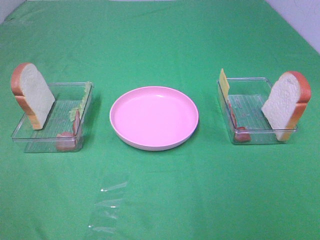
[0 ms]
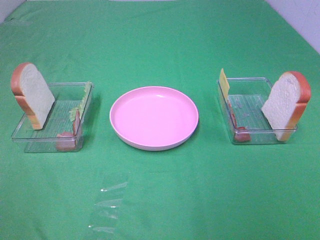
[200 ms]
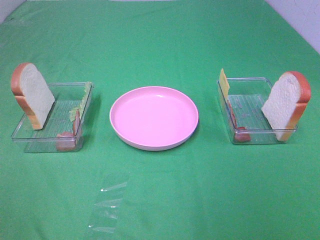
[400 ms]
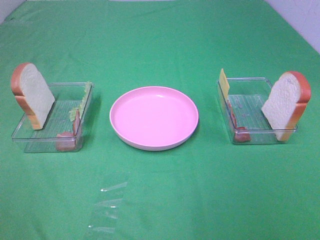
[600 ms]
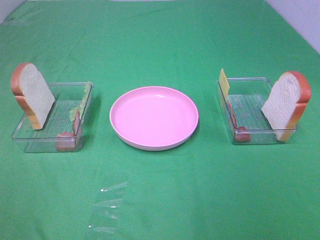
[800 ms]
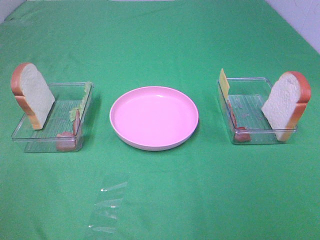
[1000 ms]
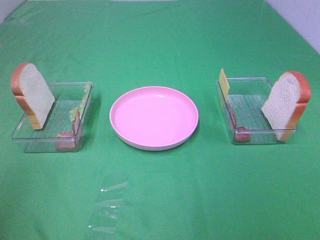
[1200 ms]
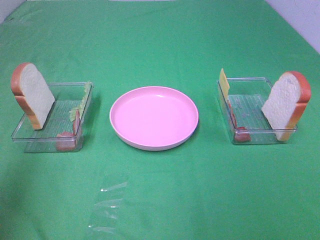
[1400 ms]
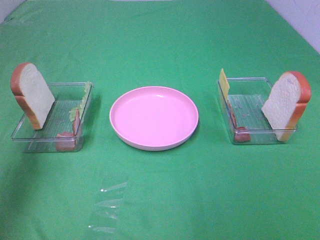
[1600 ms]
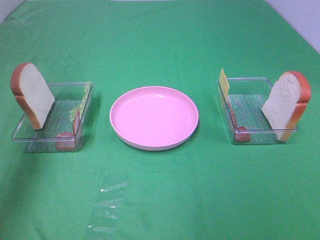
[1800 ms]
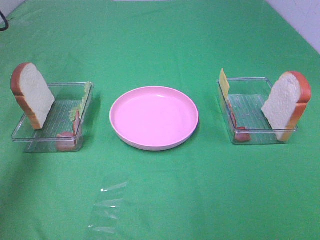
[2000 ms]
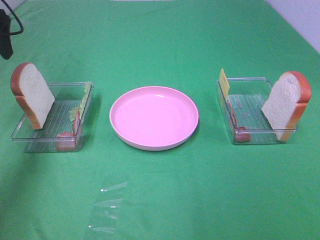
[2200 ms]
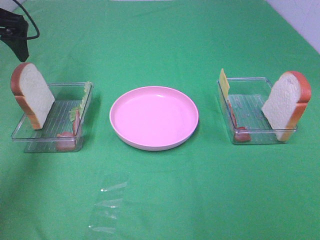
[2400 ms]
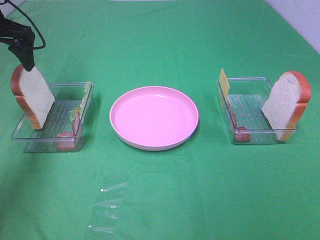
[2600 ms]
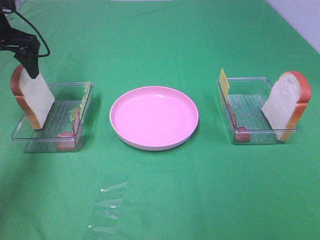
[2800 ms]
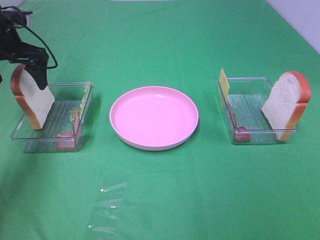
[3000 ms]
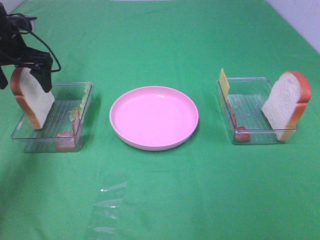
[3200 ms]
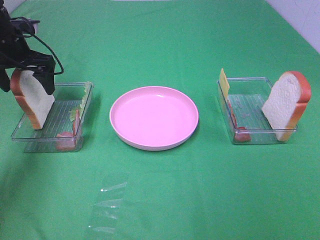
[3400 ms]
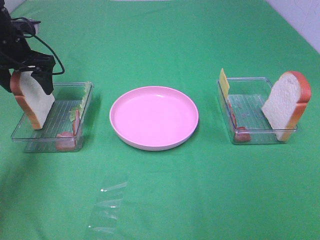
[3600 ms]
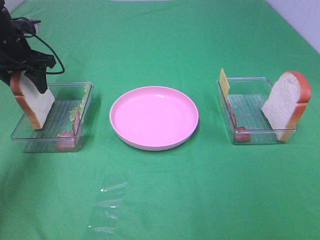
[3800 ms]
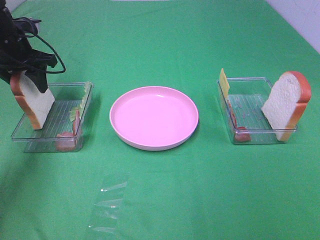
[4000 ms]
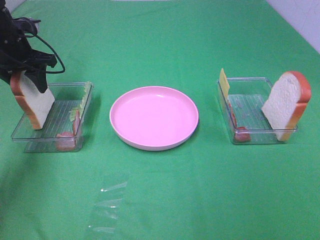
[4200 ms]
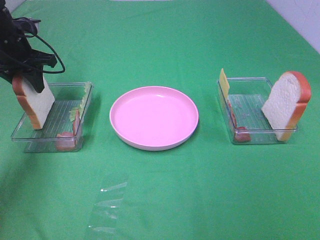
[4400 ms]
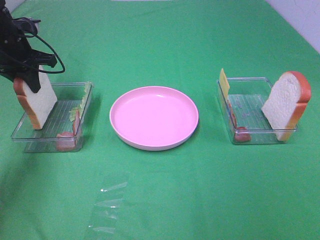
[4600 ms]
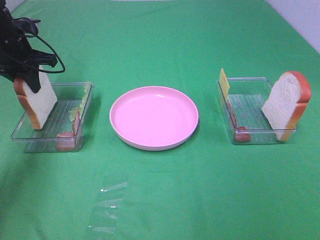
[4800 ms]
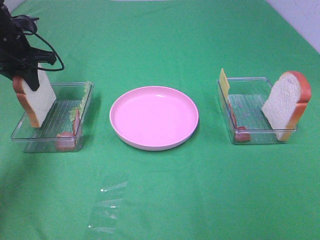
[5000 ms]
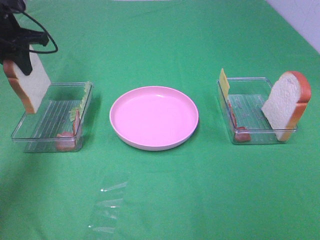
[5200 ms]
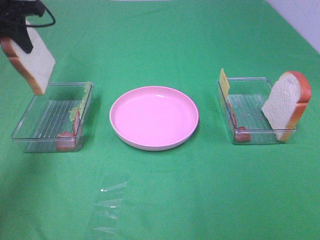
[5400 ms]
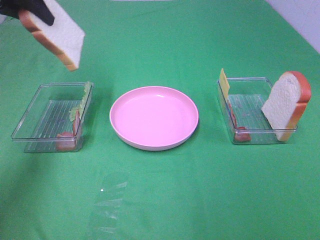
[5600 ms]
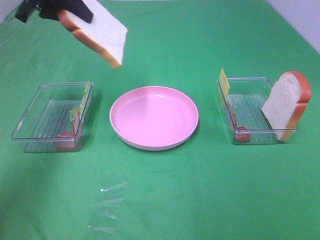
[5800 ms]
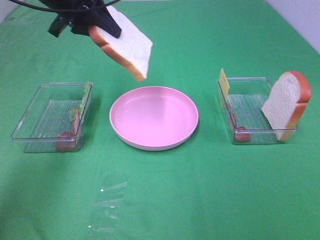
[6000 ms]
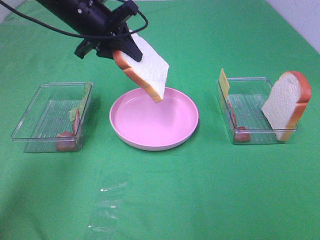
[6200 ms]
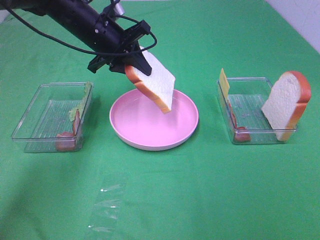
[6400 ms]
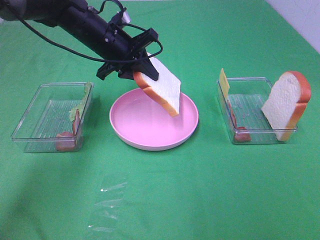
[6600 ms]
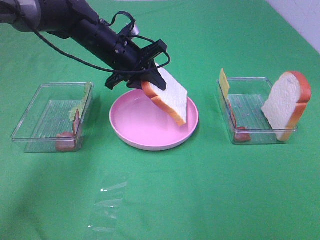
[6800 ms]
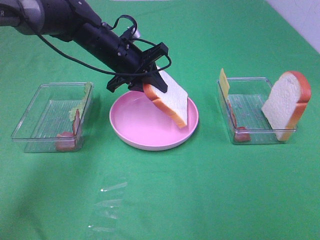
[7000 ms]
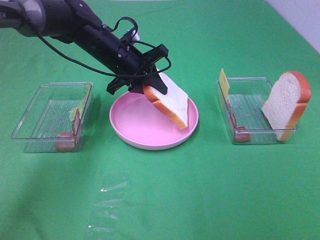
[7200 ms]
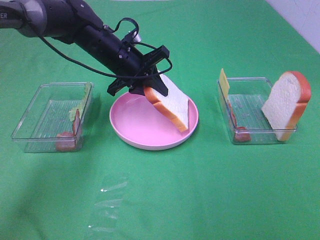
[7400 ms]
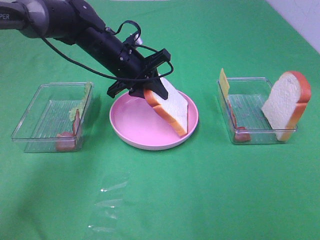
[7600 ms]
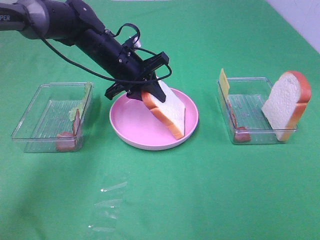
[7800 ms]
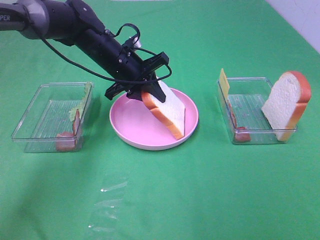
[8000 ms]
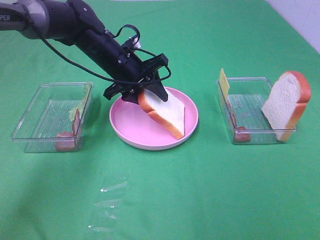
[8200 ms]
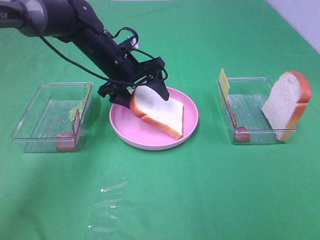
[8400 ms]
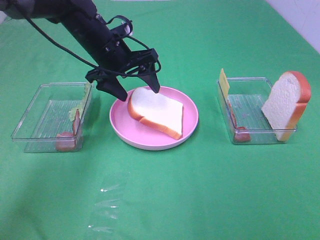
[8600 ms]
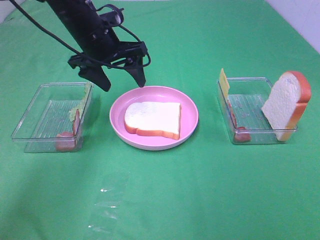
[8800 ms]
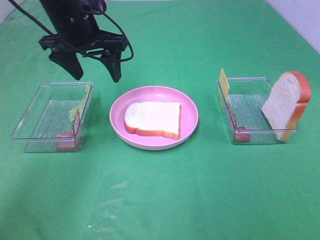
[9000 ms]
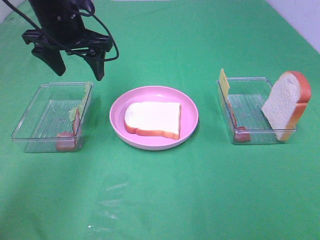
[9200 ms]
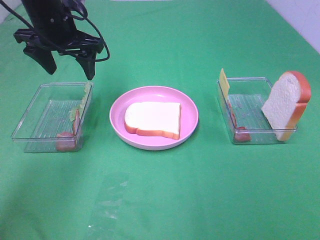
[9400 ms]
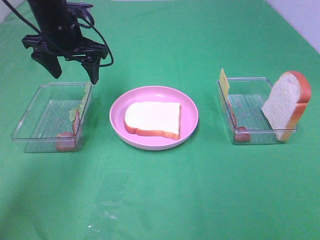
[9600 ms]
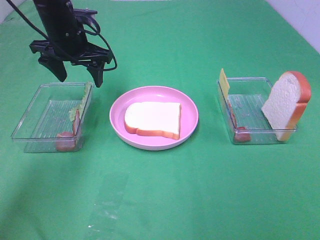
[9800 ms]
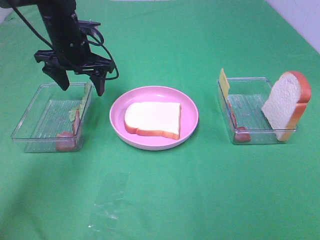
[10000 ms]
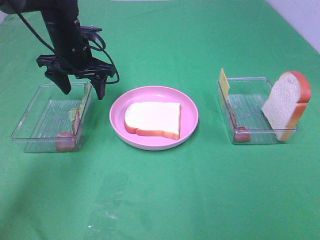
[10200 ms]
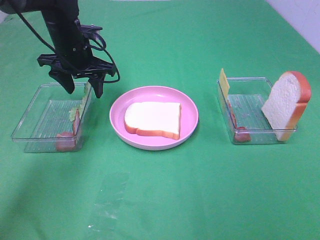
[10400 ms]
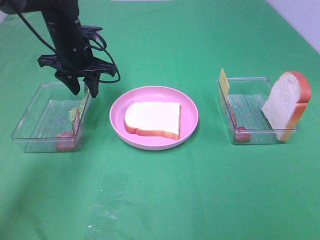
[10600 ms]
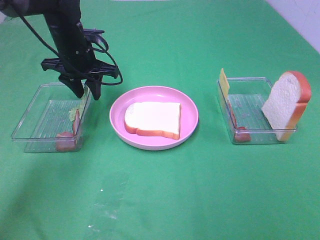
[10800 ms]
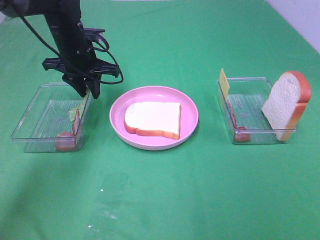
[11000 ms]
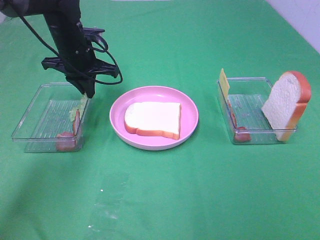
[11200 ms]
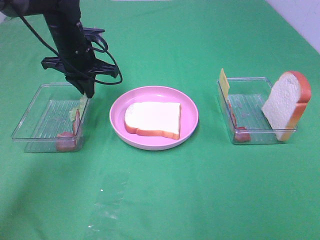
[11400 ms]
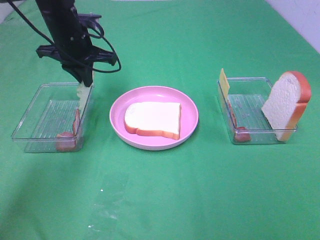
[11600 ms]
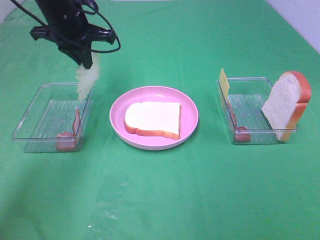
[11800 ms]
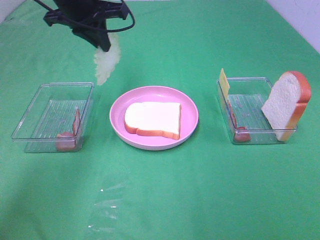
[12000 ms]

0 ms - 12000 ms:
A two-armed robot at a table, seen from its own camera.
Task of the whole recording: Make sandwiches.
Step, 0 ms - 4800 ms: Left hand:grab the bread slice.
Step, 5000 ms - 8600 ms: Left hand:place the bread slice on the plate.
Step, 8800 ms - 11200 ms: Left hand:grab the lettuce slice.
0 ms - 1600 ms: The left gripper goes approximately 30 cm forward.
1600 ms - 3000 ms: The left gripper goes approximately 20 cm forward and downward.
3000 ms - 4400 ms: The left gripper closes its fingers.
4400 ms - 6000 ms: The left gripper heads to the right and upward, covering roughly 15 cm.
6000 ms - 7600 ms: The left gripper goes approximately 15 cm downward and to the right.
7600 ms - 9000 ms: The left gripper moves upward and to the left, roughly 10 cm, and opens up.
9000 ms - 10400 ms: The left gripper travels downward by roughly 5 cm.
10400 ms - 12000 ms: The left gripper is displaced upward by approximately 10 cm, and closes up.

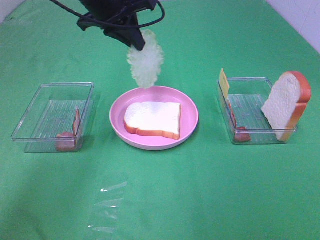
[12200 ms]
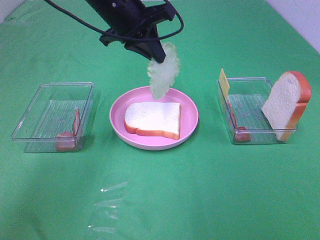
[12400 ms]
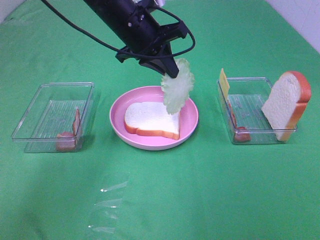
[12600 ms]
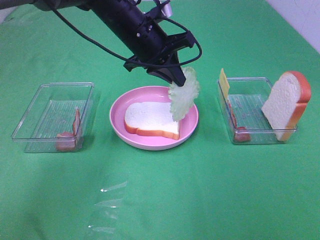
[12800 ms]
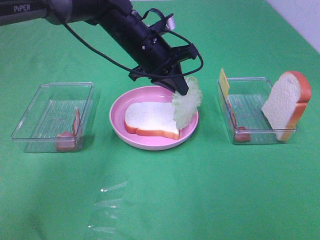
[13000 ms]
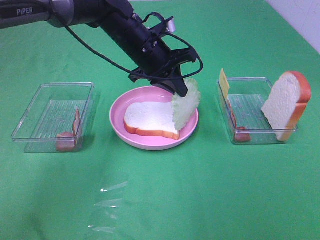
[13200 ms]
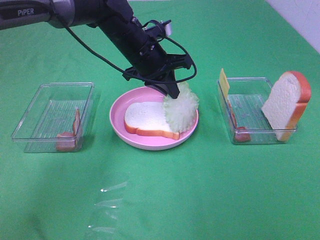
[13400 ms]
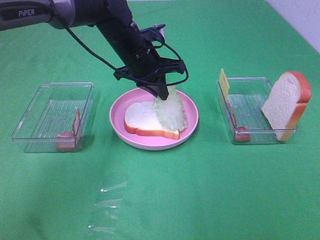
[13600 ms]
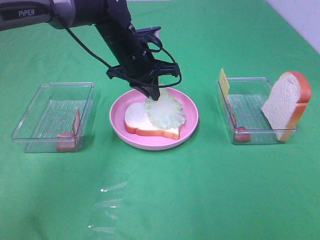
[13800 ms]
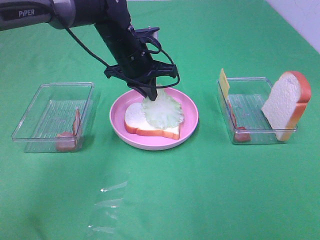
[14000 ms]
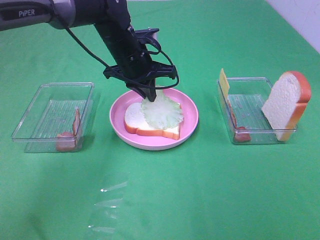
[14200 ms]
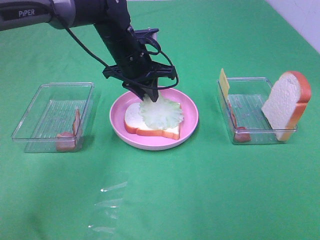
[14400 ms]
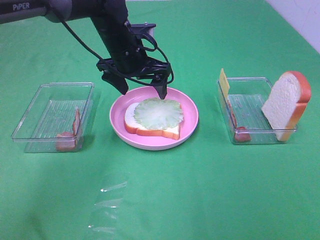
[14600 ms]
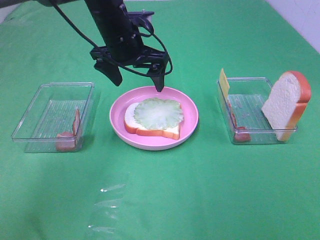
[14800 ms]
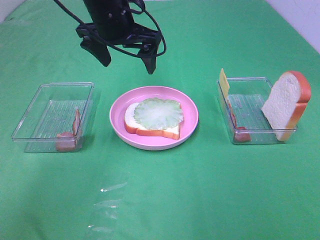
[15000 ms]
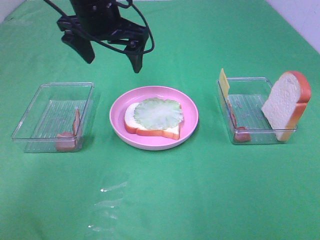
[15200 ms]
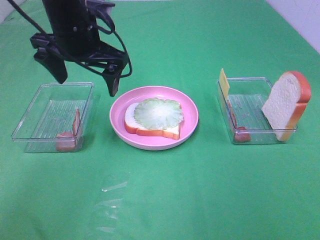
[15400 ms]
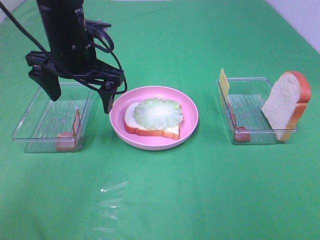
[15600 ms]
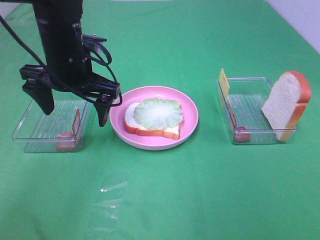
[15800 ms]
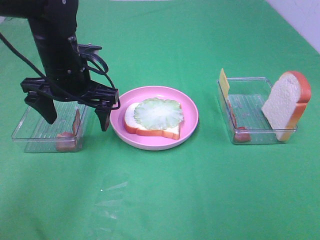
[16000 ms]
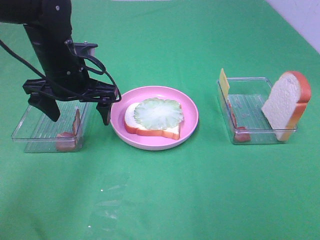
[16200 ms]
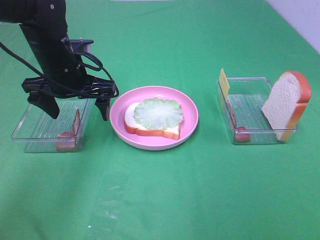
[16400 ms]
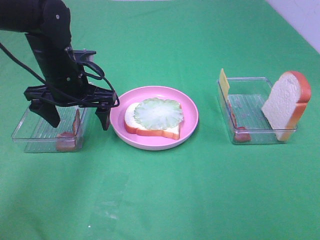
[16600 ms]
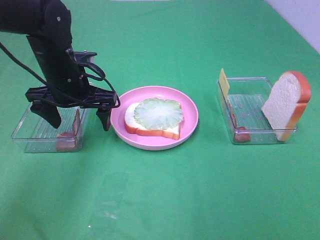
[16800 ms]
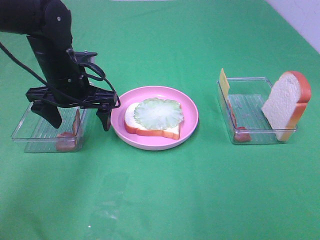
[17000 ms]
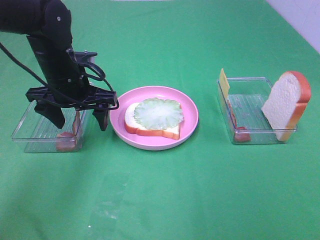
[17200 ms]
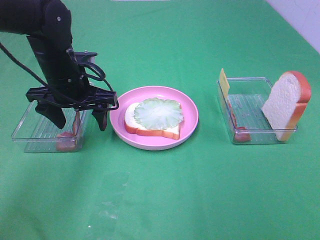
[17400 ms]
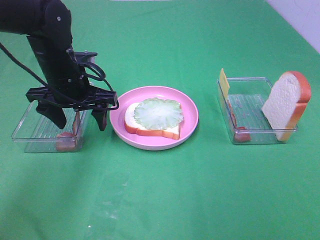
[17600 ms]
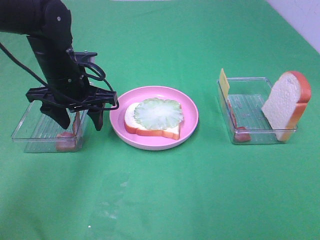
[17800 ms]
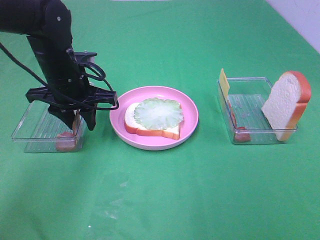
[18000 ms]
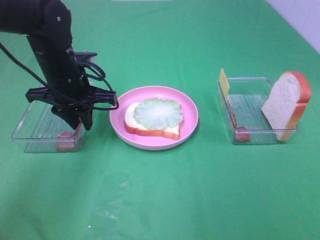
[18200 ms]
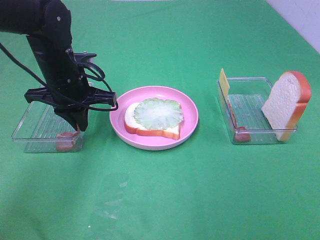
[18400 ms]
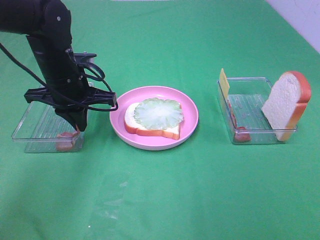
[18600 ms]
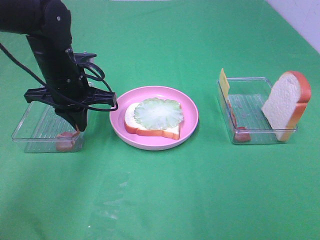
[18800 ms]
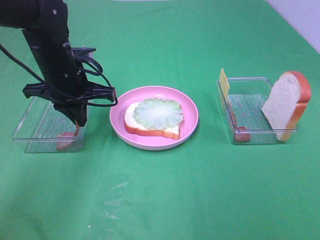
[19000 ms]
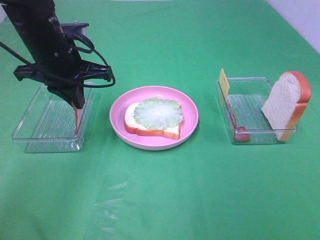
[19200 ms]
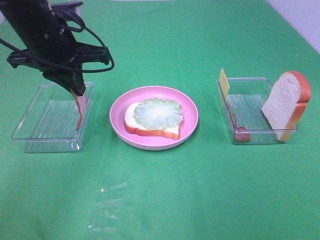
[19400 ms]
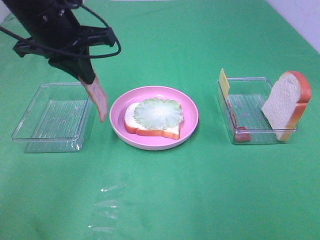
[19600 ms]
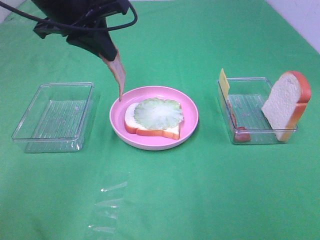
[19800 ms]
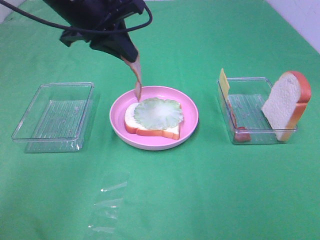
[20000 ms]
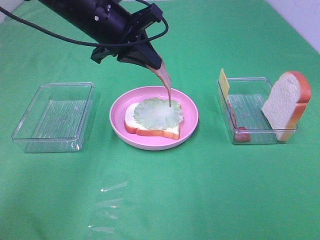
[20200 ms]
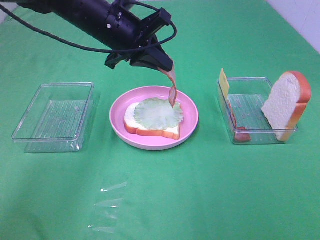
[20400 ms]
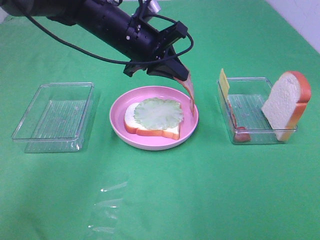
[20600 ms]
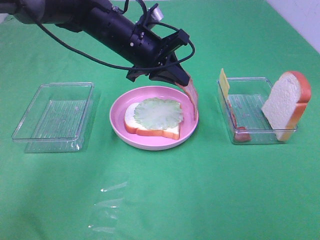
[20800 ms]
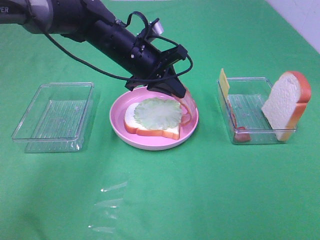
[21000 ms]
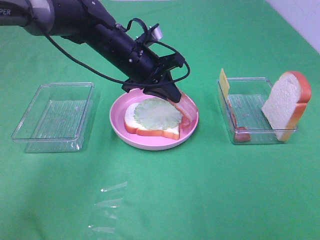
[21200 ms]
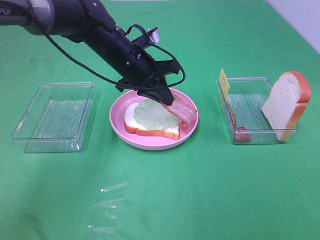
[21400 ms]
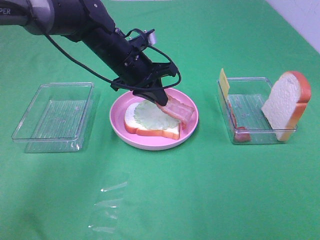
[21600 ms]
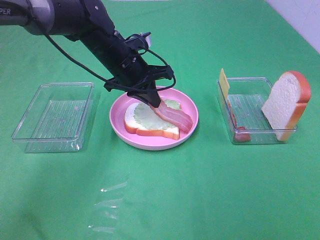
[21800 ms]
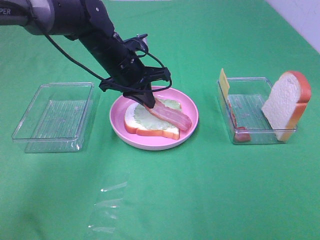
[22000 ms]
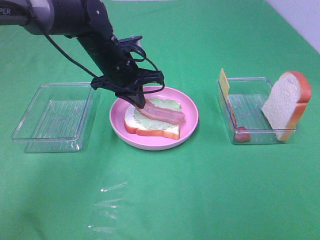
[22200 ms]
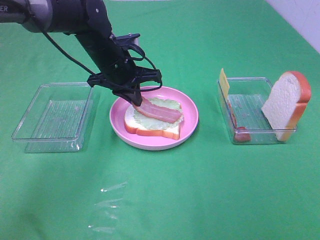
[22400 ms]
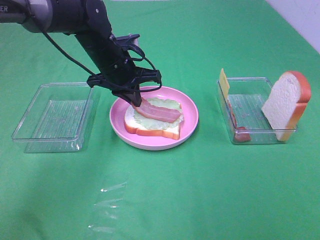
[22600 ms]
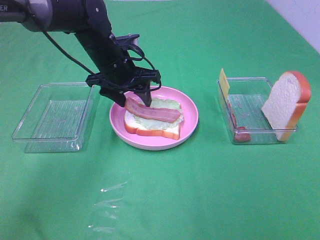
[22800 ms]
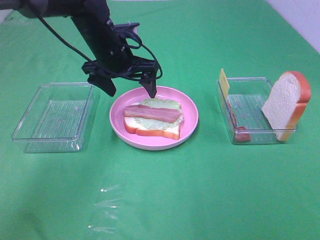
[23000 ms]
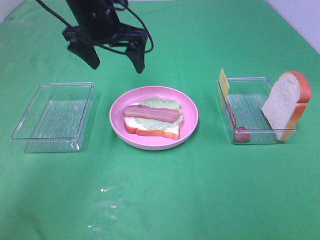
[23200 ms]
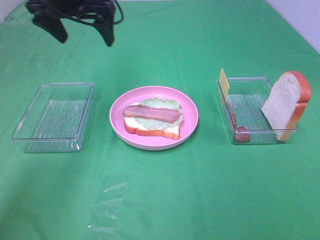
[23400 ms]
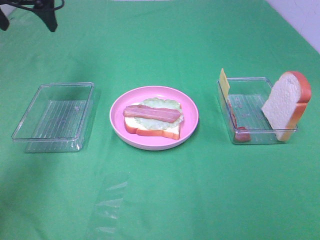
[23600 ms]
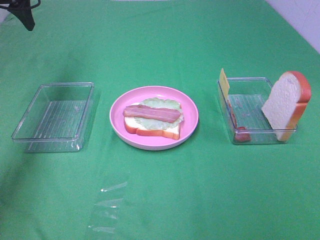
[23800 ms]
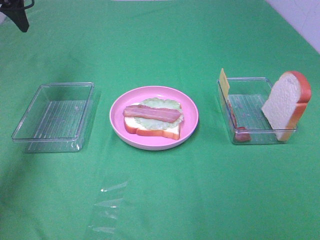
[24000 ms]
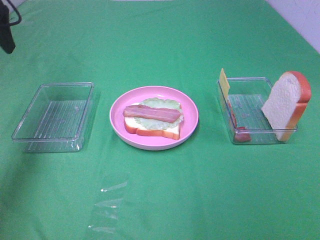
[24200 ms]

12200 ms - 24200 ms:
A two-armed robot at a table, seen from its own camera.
Task of the whole recording: Make sandwiches.
Step, 12200 ms - 14400 ms: Left hand:place the lettuce slice on the bread slice.
Step, 14600 ms - 18600 ms: Left hand:grab the bacon.
Step, 18800 ms - 22800 ms: Left hand:place bacon on lettuce slice.
12200 ms - 13800 ms: The left gripper goes roughly 10 cm downward.
13800 ms - 15200 ms: The left gripper is displaced upward by some 10 cm, and opens up.
15200 ms - 16600 ms: The left gripper moves downward and to the left, approximately 10 cm.
16600 ms - 18200 ms: The left gripper closes up.
18200 ms - 19800 ms: The left gripper shifts some 15 cm upward.
19800 ms - 21200 ms: The left gripper is displaced downward, to the right and forward by some 15 cm.
22600 ms - 24200 ms: The left gripper travels to the left and upward by about 30 cm, and opens its fingers.
